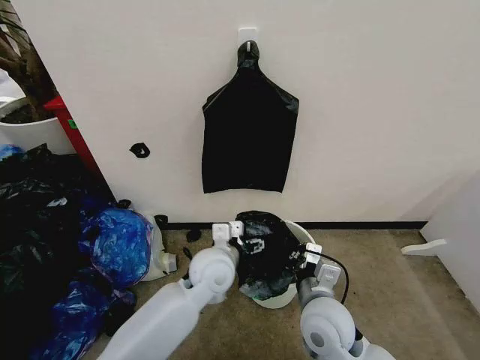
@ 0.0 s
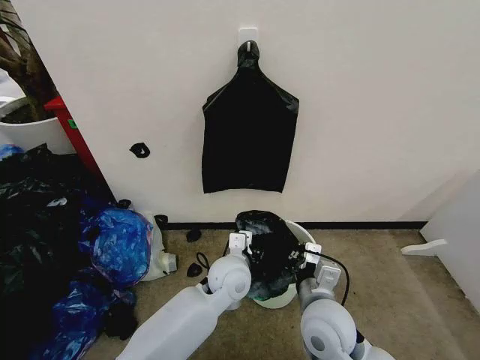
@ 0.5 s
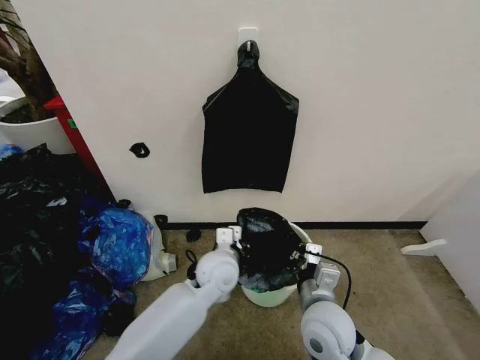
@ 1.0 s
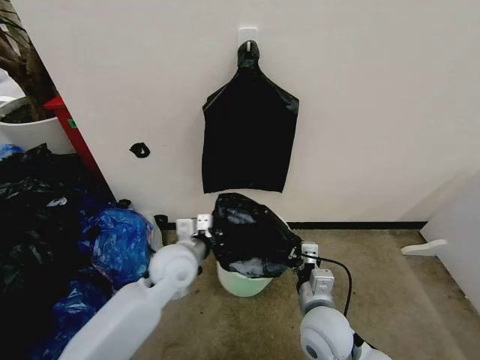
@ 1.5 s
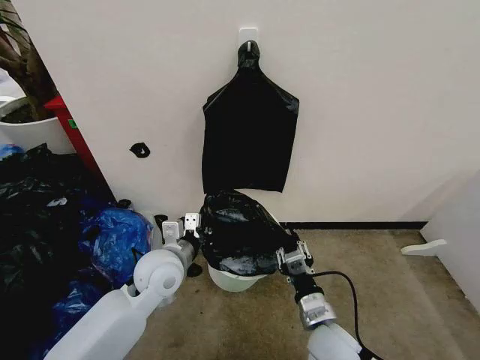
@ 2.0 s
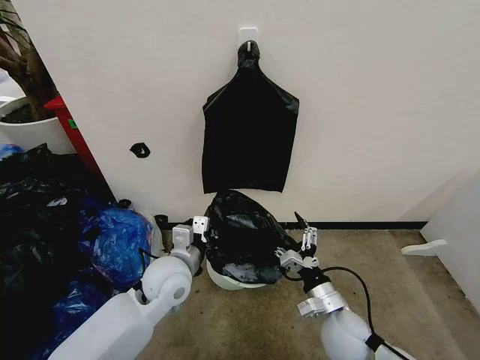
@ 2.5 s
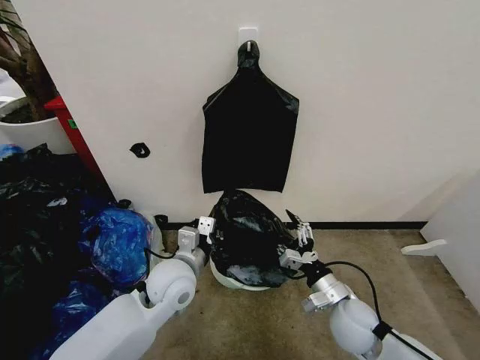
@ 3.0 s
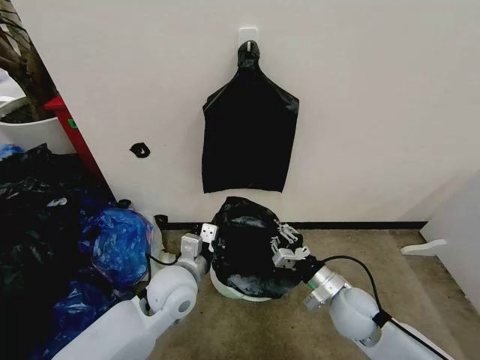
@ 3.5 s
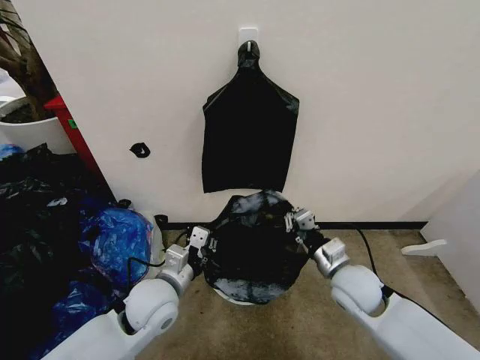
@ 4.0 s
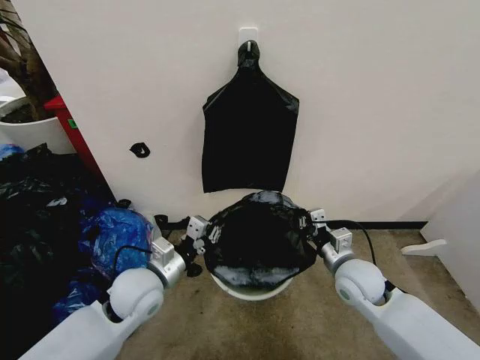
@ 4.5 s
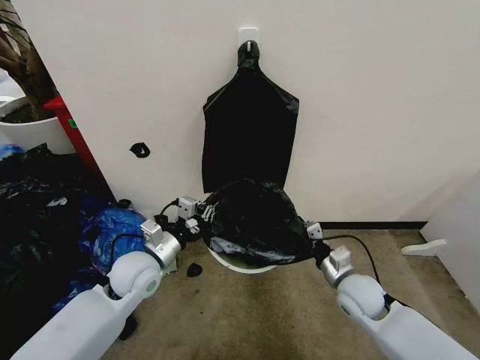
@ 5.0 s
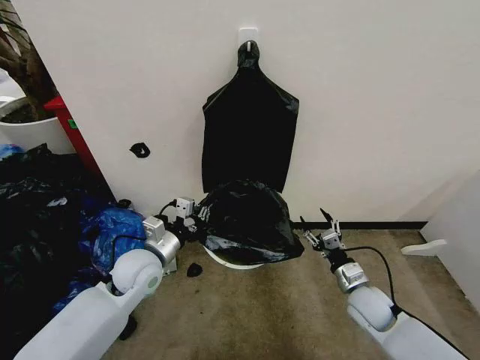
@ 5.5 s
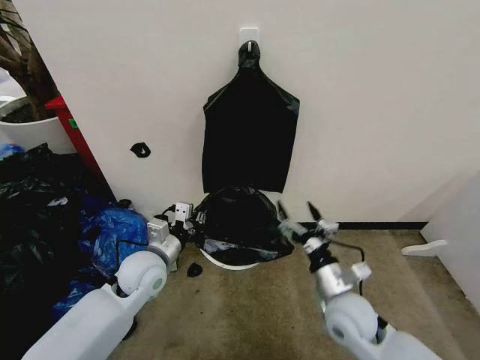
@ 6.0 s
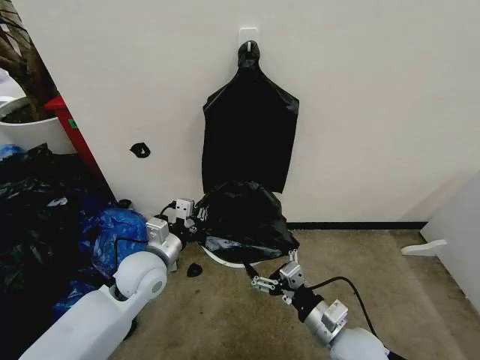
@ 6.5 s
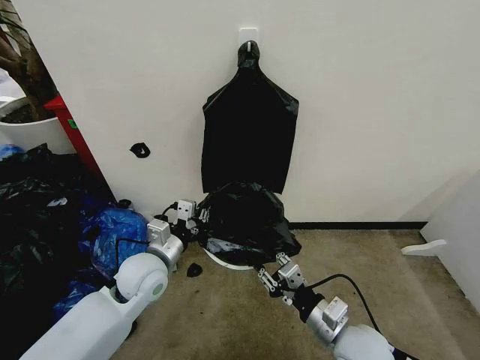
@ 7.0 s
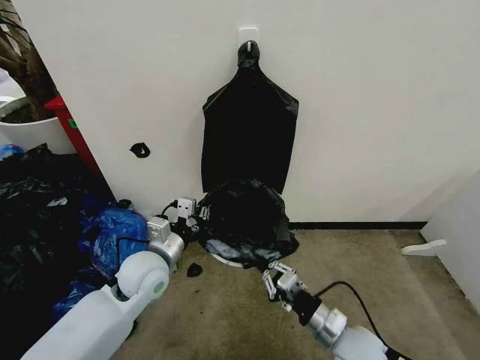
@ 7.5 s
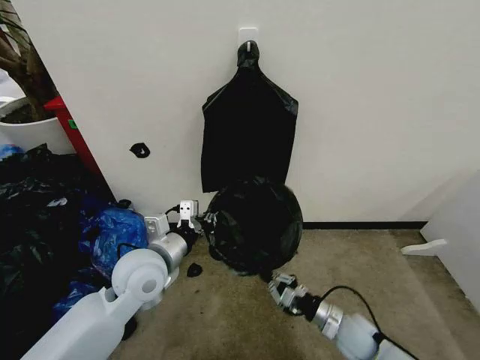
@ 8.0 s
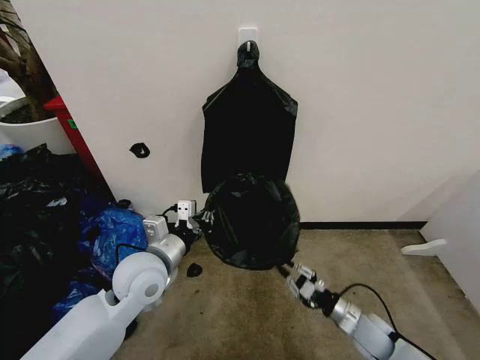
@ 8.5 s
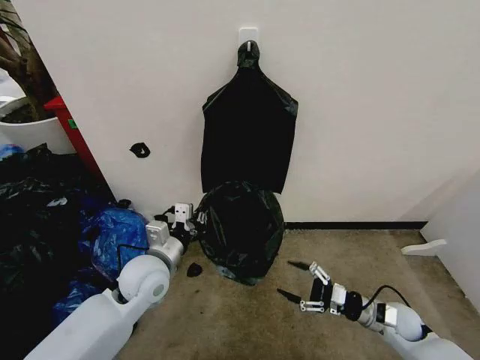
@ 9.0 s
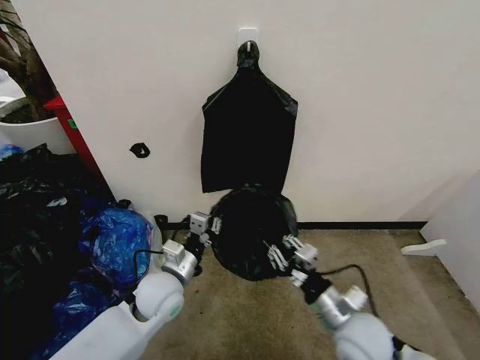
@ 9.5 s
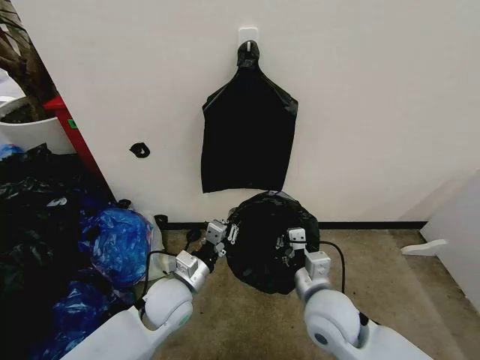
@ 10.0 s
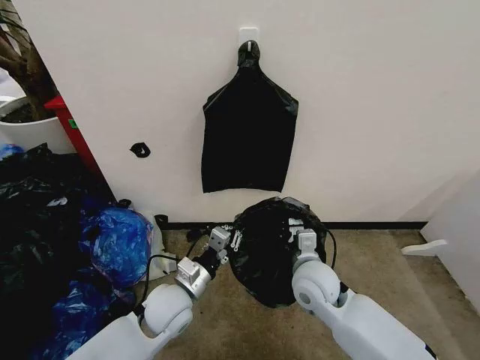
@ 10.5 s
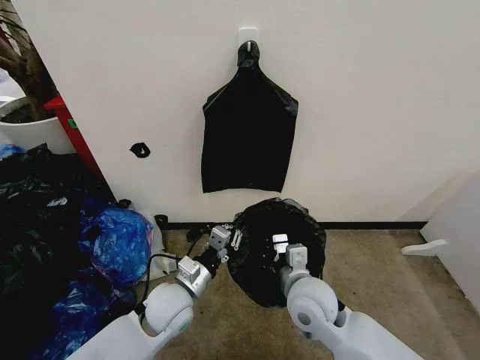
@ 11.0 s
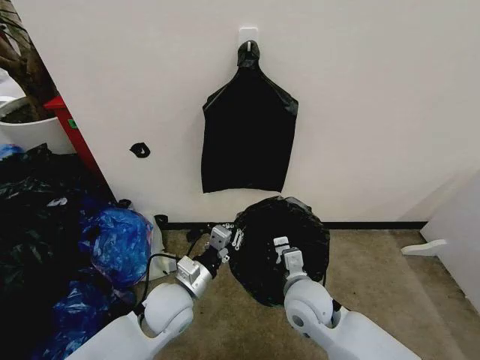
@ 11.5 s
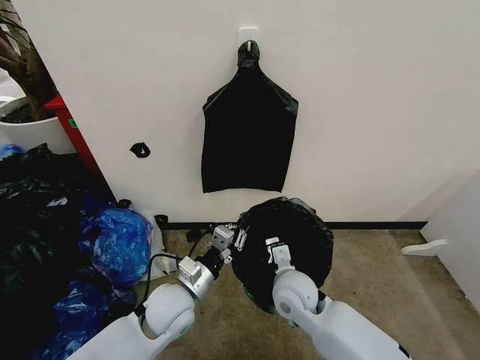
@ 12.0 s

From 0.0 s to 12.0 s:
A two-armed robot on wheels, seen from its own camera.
Task of the whole recording: Place the garbage bag over the trash bin.
From 0.0 s to 2.0 s: The right gripper shifts about 5 cm downward, while the left gripper is displaced to the left by some 10 cm, and closes up.
From 2.0 s to 4.0 s: The left gripper heads backward, covering some 5 cm; the right gripper travels forward and to the right by approximately 10 cm, and opens, then closes once more.
From 4.0 s to 6.0 s: The left gripper goes roughly 5 cm forward. The right gripper travels backward by approximately 5 cm, goes downward and returns, approximately 10 cm each way, and opens up.
From 6.0 s to 8.0 s: The right gripper travels downward and to the right by about 15 cm, and closes. Meanwhile the left gripper shifts approximately 5 cm upward.
From 8.0 s to 10.0 s: The left gripper goes some 10 cm downward. Meanwhile the right gripper is displaced upward and to the left by about 20 cm, and opens and closes again.
From 10.0 s to 12.0 s: The right gripper shifts about 10 cm forward and to the left.

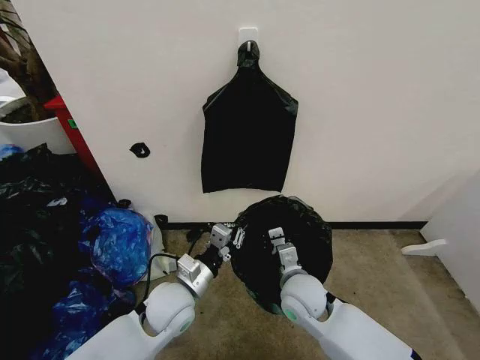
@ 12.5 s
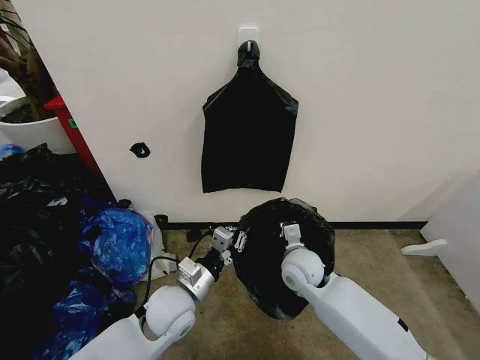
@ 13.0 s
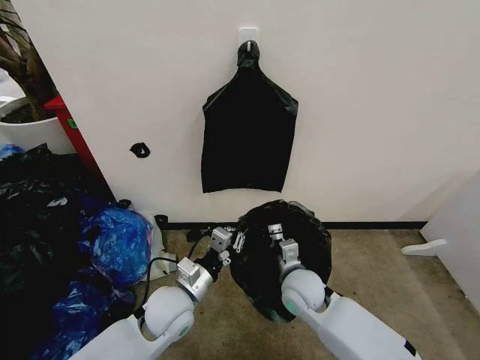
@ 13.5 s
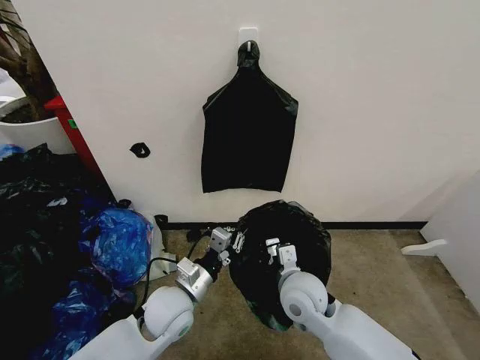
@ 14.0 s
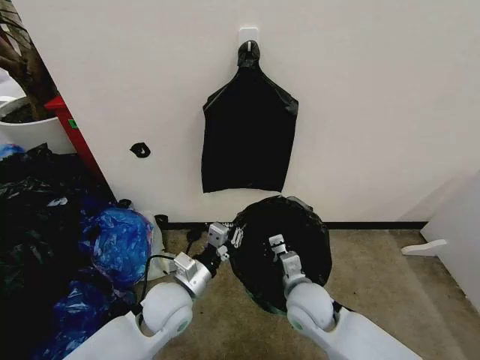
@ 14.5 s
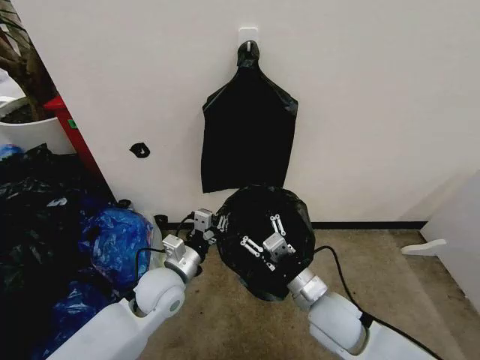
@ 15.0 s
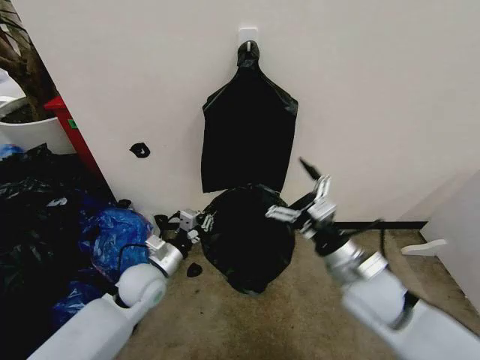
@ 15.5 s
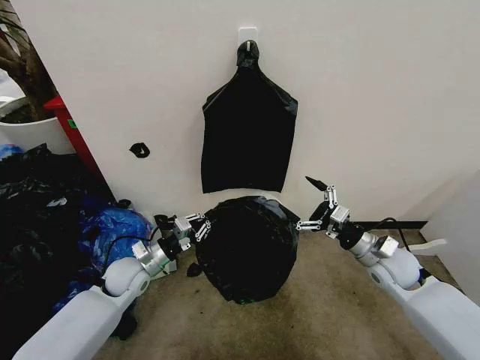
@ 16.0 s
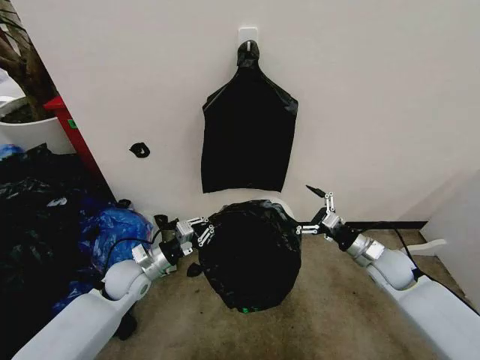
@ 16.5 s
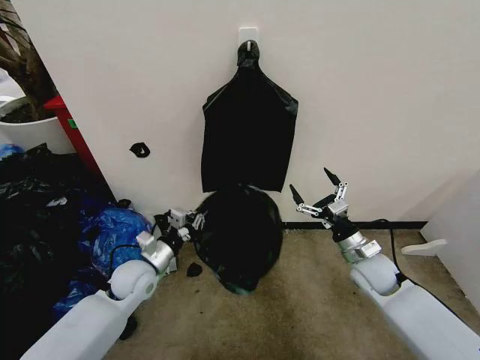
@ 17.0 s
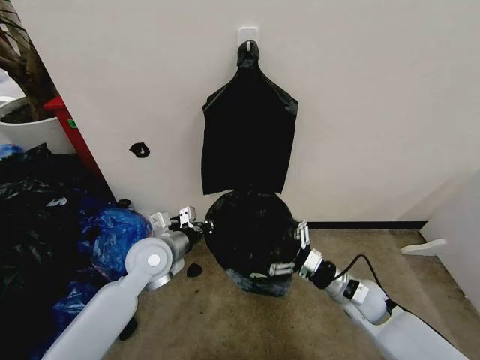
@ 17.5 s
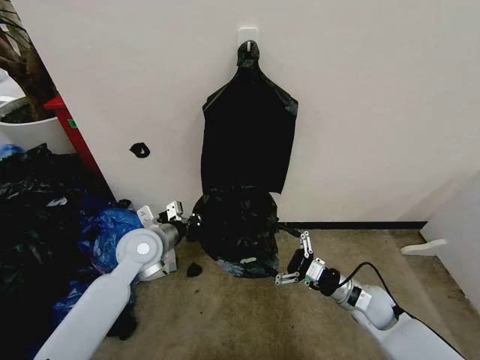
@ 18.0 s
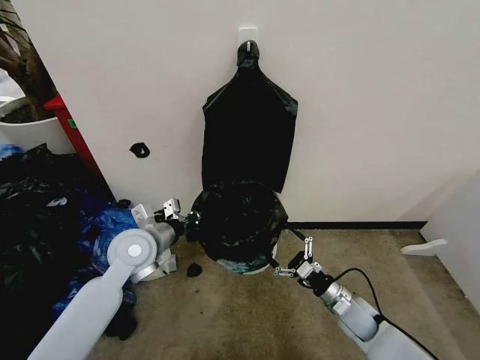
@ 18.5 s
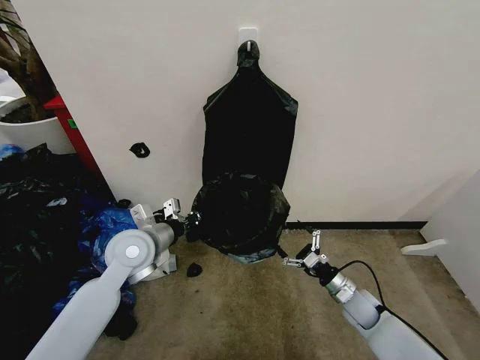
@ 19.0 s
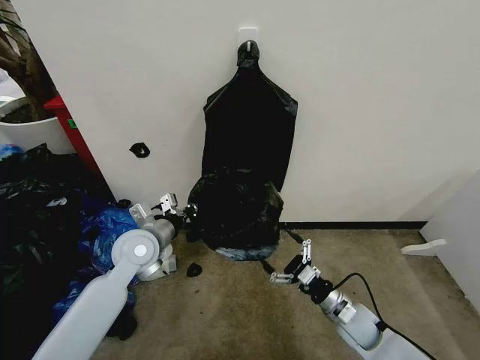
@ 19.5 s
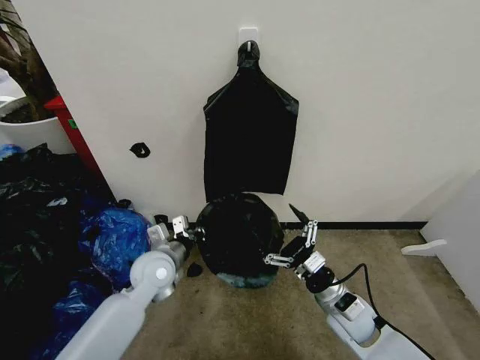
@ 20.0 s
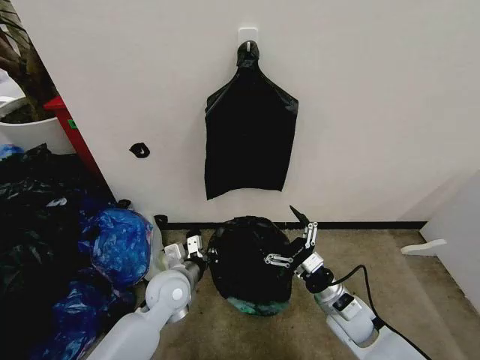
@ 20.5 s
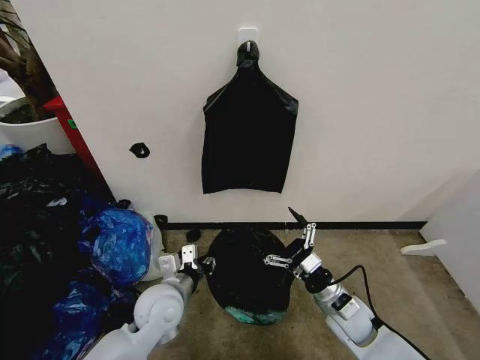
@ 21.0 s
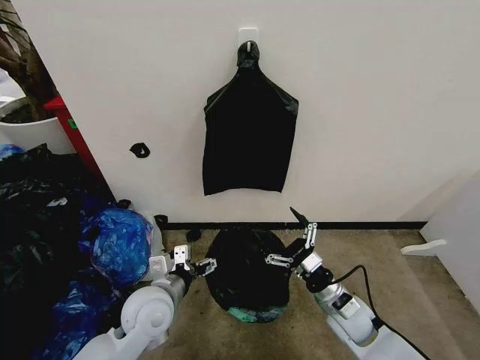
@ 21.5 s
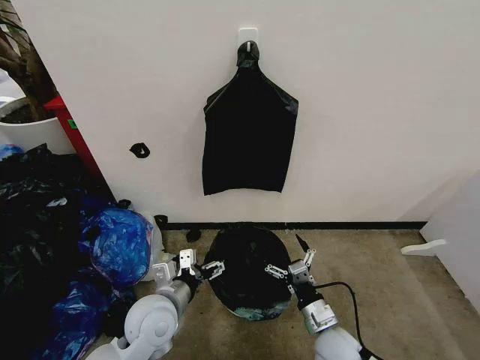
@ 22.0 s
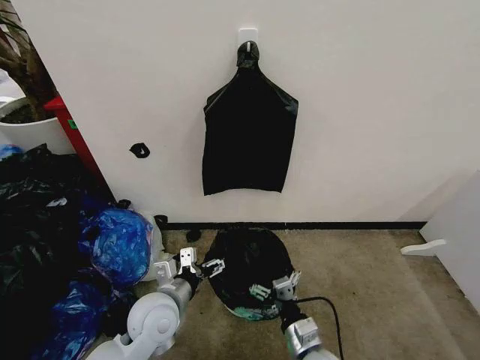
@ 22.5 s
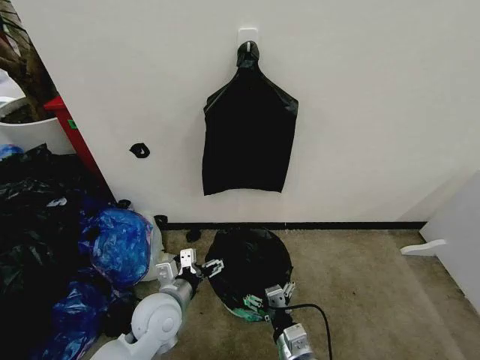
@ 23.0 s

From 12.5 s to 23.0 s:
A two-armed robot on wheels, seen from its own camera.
Task of the whole recording: Place the garbage bag over the trash bin.
From 12.5 s to 14.5 s: The right gripper travels forward and back again, roughly 5 cm each way.
From 14.5 s to 16.5 s: The right gripper heads to the right, covering some 20 cm, and opens. Meanwhile the left gripper travels to the left and forward by some 15 cm.
From 16.5 s to 19.0 s: The left gripper shifts some 10 cm upward, while the right gripper moves downward, approximately 15 cm.
From 19.0 s to 21.0 s: The right gripper shifts approximately 10 cm upward and to the left, while the left gripper heads downward, backward and to the right, covering about 15 cm, and opens up.
From 21.0 s to 23.0 s: The right gripper travels backward and to the left by roughly 15 cm; the left gripper opens.

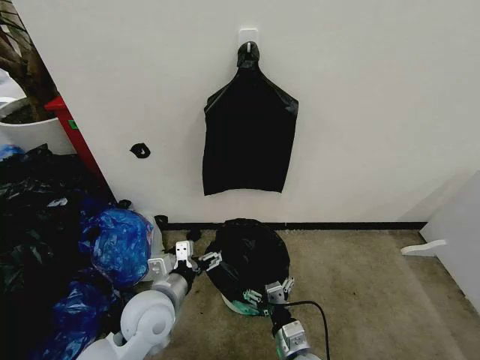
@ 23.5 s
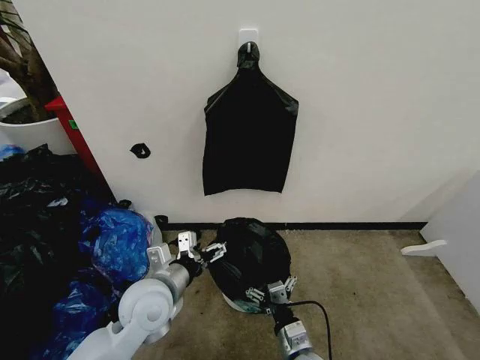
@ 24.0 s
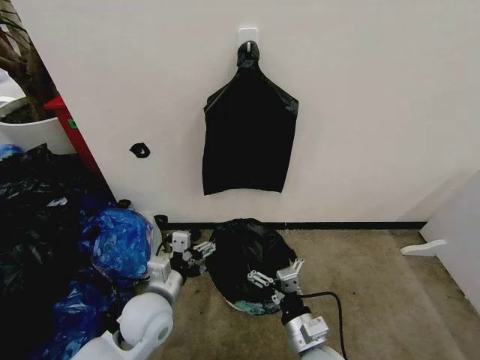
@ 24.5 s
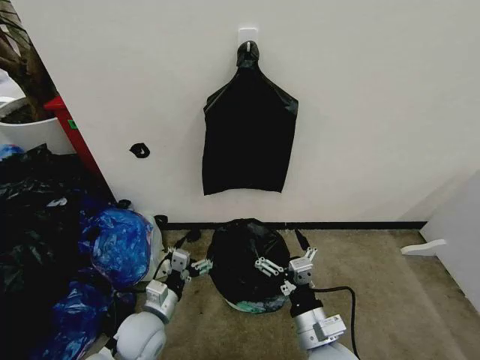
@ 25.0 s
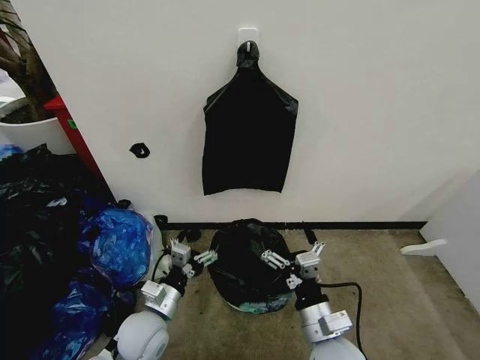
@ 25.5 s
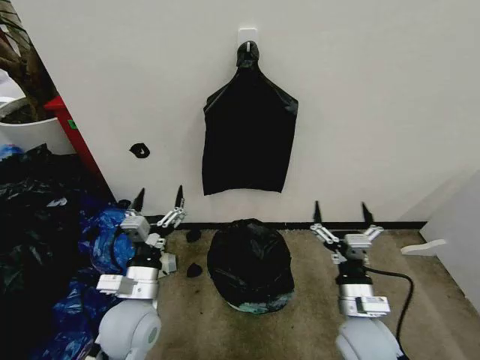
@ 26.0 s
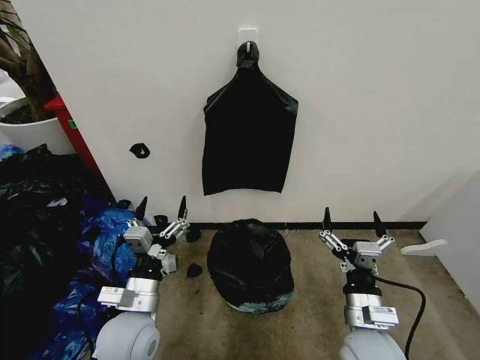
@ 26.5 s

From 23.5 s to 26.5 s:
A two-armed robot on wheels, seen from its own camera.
Task of the whole recording: Place the garbage bag over the trash bin.
From 23.5 s to 25.0 s: The left gripper travels downward by about 10 cm; the right gripper heads upward, covering approximately 10 cm.
From 25.0 s to 26.5 s: The right gripper is displaced to the right by some 5 cm; the left gripper goes about 10 cm upward.
